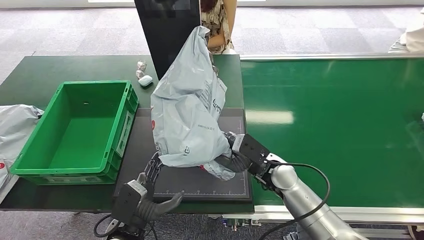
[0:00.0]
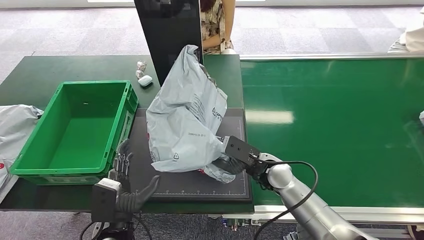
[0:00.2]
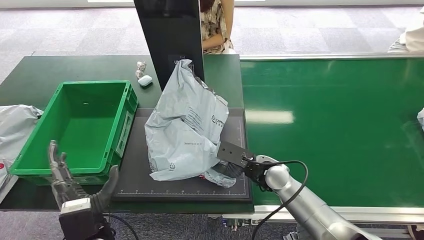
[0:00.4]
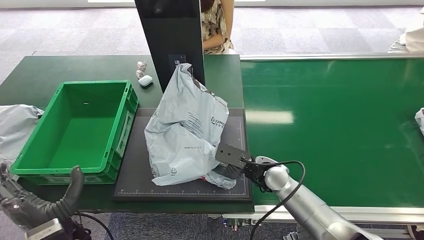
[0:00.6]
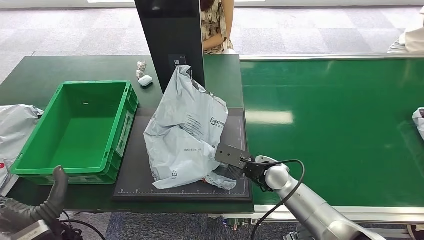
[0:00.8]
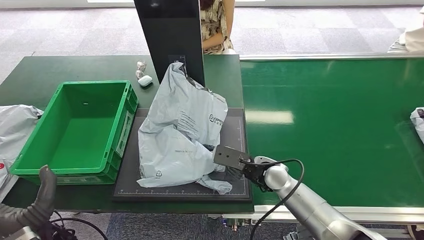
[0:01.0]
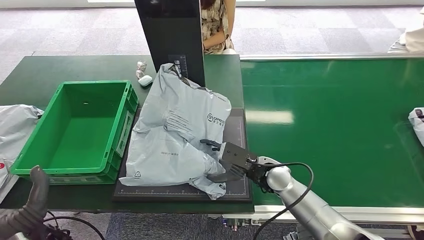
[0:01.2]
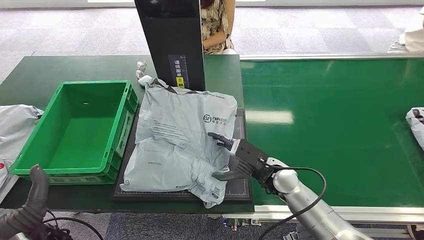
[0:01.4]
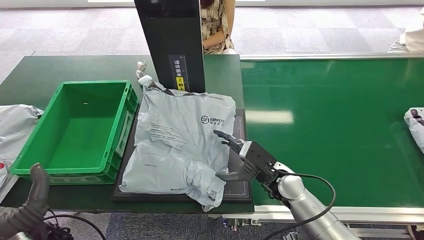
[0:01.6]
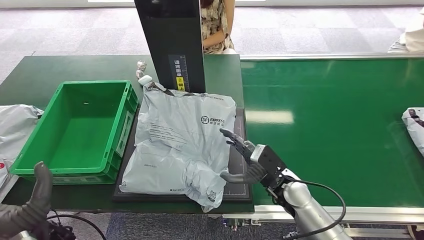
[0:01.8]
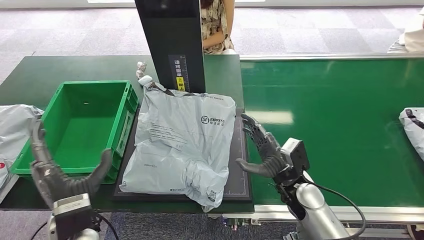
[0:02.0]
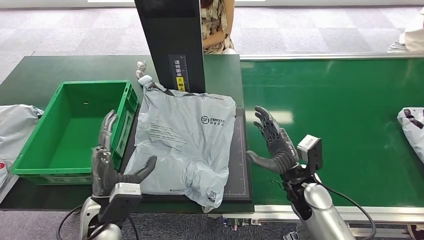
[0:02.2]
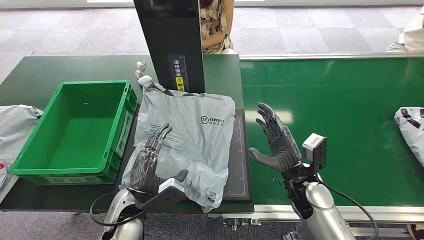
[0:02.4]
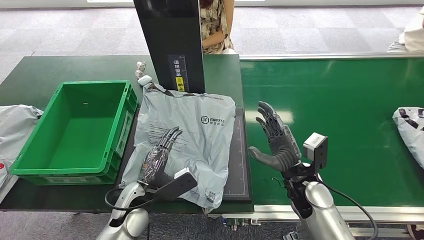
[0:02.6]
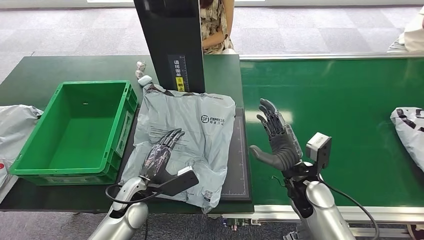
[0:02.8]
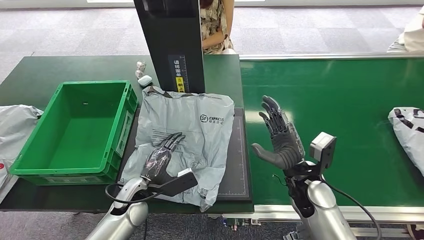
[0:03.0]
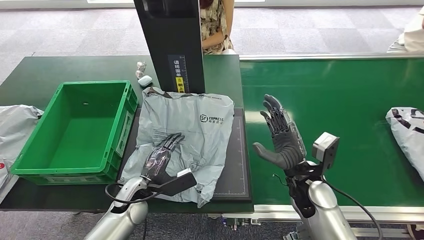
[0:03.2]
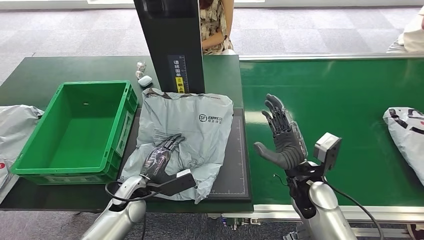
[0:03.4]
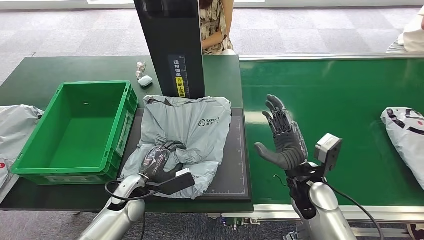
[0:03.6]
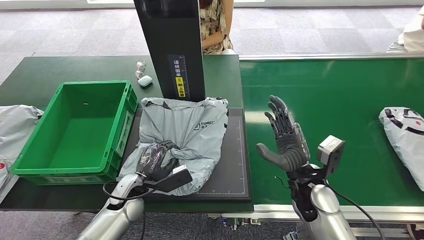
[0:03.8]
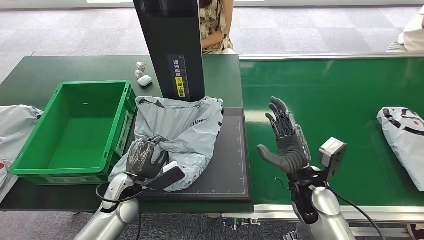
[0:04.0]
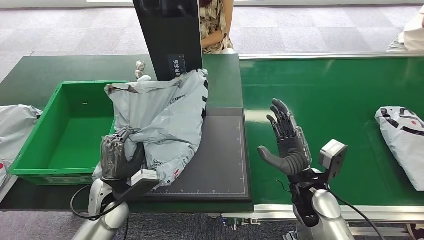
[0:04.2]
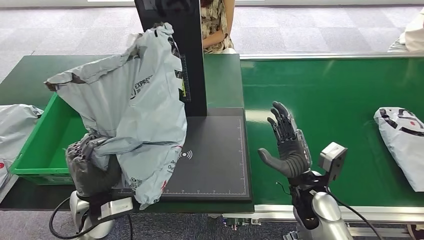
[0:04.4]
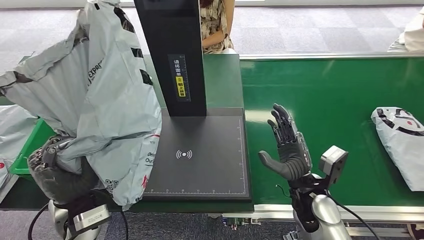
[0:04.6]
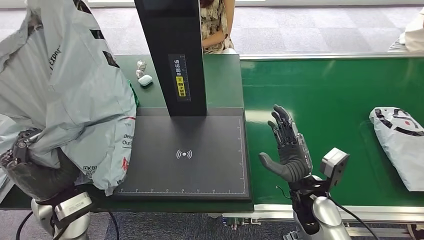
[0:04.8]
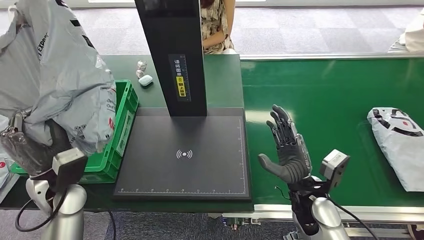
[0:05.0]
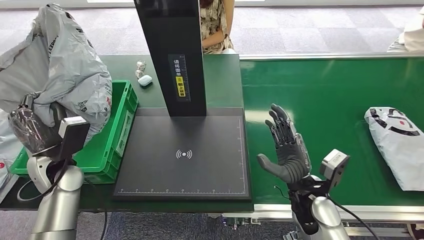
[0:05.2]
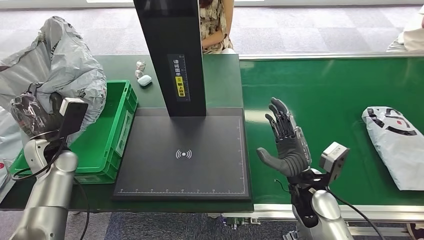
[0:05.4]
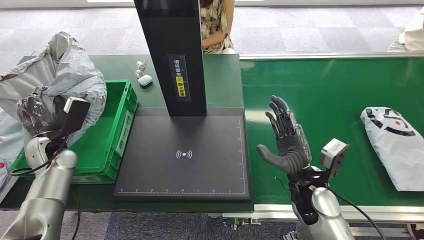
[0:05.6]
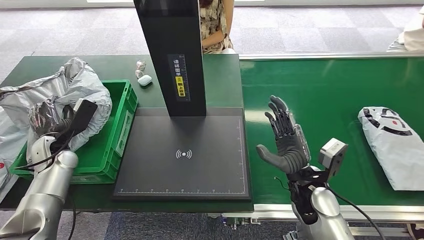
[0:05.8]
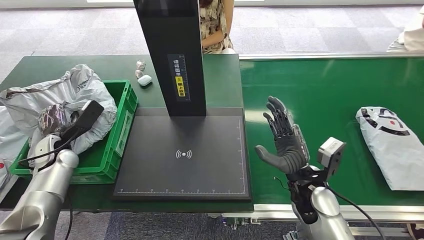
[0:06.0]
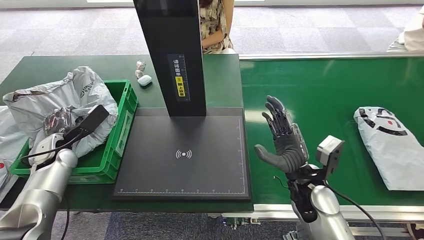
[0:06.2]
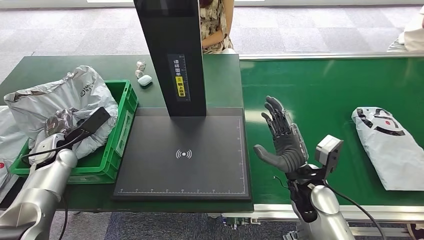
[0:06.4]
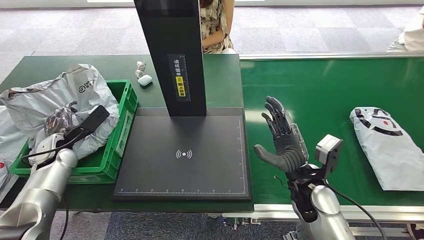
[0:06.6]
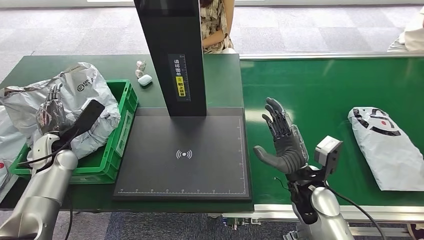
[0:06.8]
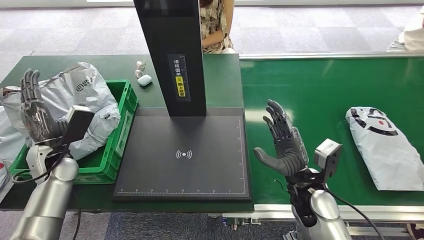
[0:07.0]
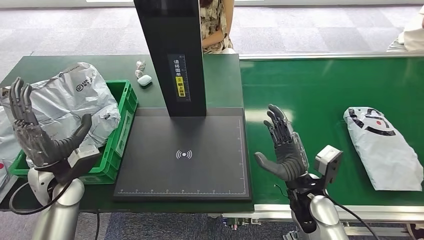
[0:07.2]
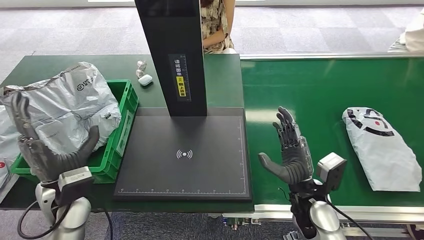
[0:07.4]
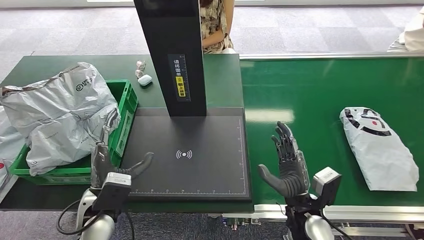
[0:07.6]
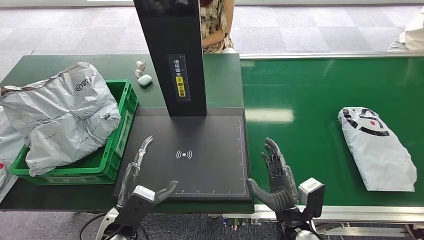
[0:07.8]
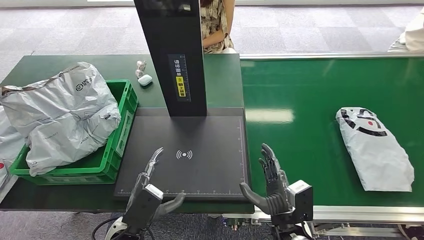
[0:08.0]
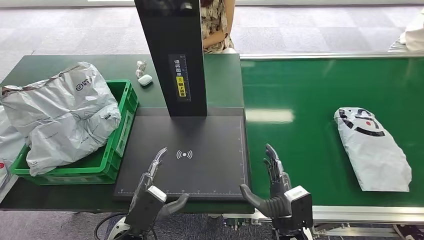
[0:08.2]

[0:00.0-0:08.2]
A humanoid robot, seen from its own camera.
Step, 0:00.0 to 0:01.6: Place the package onto the inbound machine.
Step, 0:02.0 to 0:04.4: Pick up the package from the inbound machine.
Step, 0:04.6 to 0:08.0: Place the package into the parcel locker.
0:00.0 to 0:01.6: The left hand is displaced to the left and upward by some 15 cm.
0:01.6 to 0:03.2: The left hand heads forward, downward and to the right, covering approximately 20 cm; the right hand shifts by roughly 5 cm.
